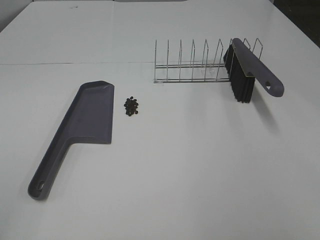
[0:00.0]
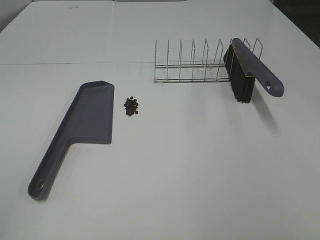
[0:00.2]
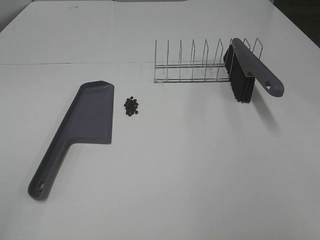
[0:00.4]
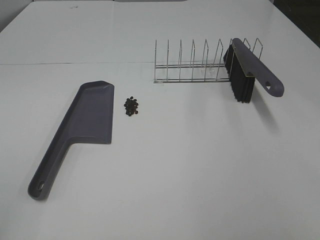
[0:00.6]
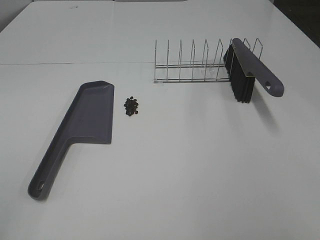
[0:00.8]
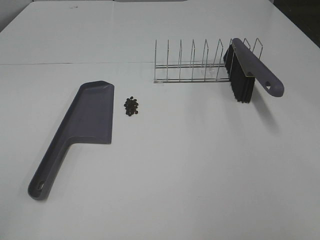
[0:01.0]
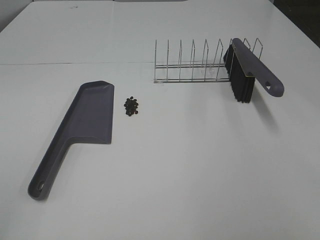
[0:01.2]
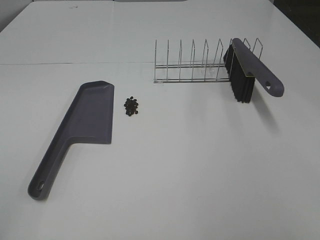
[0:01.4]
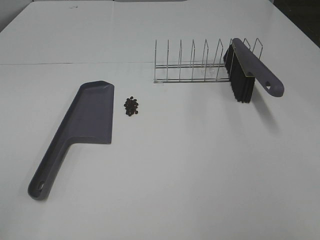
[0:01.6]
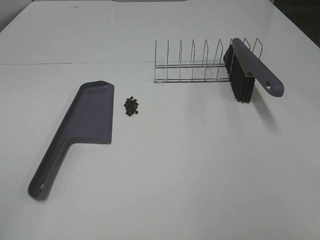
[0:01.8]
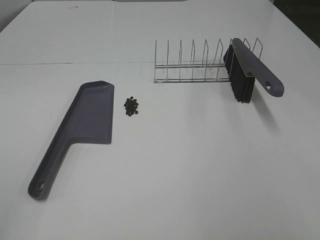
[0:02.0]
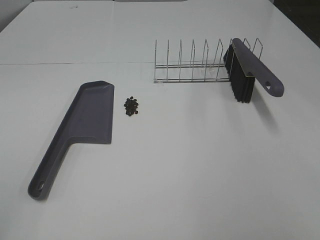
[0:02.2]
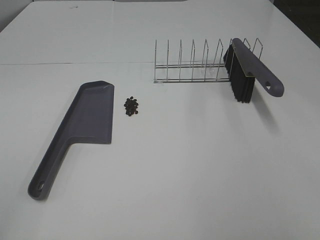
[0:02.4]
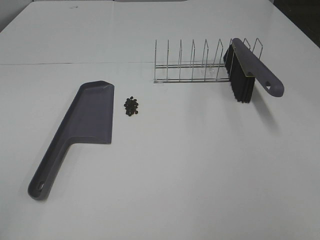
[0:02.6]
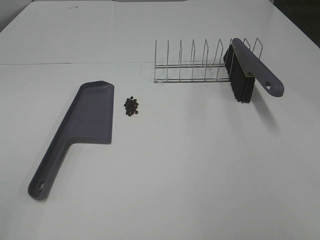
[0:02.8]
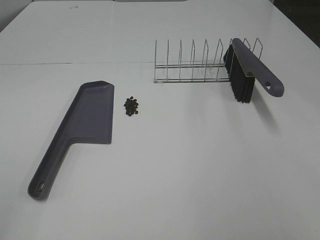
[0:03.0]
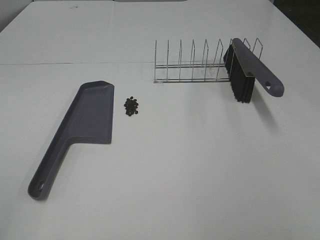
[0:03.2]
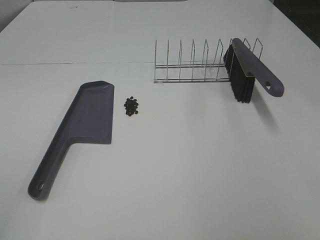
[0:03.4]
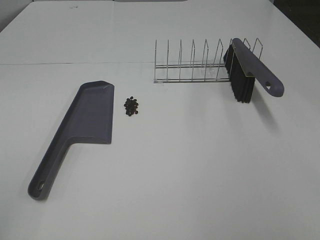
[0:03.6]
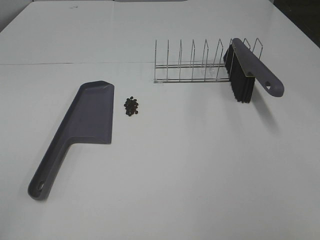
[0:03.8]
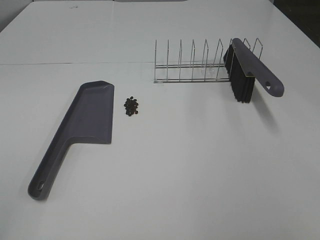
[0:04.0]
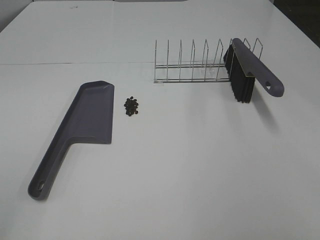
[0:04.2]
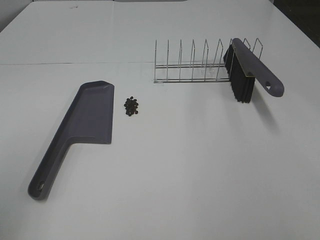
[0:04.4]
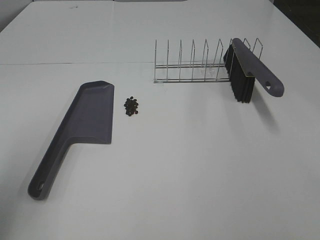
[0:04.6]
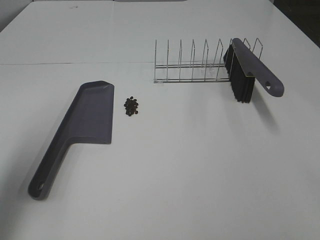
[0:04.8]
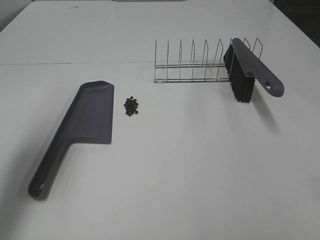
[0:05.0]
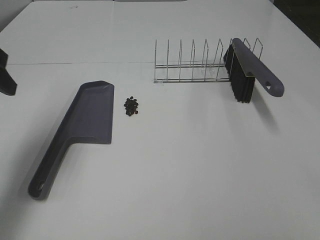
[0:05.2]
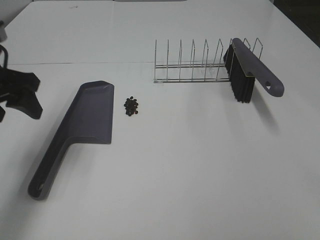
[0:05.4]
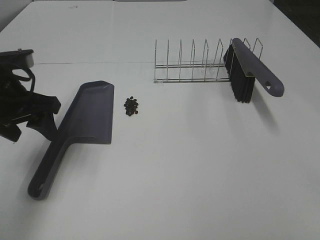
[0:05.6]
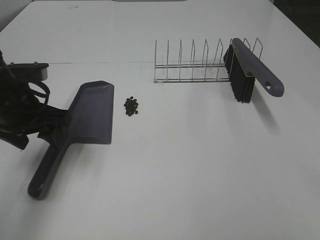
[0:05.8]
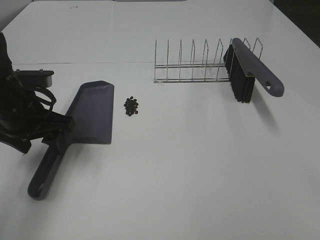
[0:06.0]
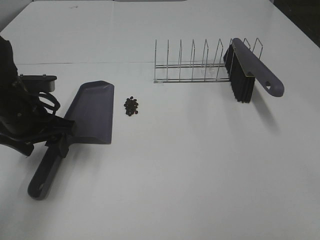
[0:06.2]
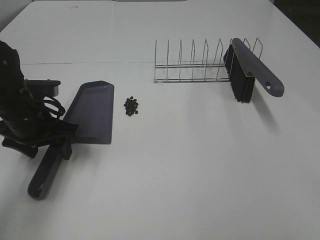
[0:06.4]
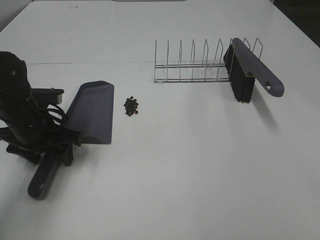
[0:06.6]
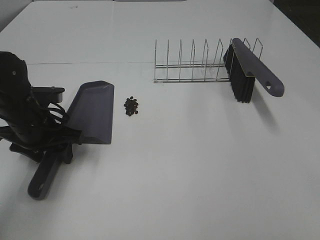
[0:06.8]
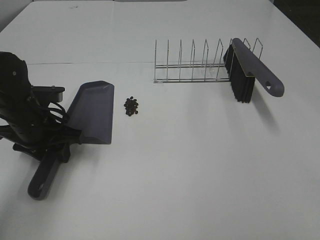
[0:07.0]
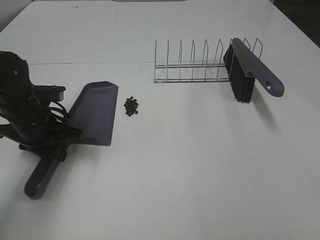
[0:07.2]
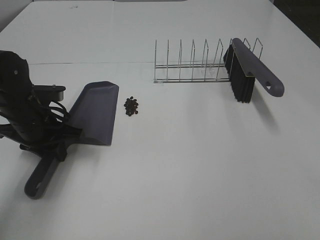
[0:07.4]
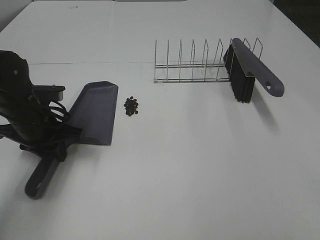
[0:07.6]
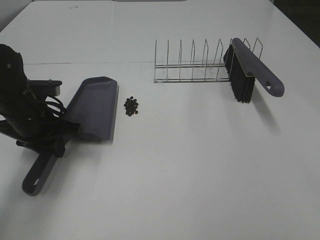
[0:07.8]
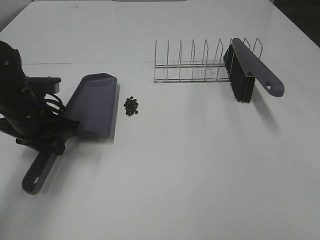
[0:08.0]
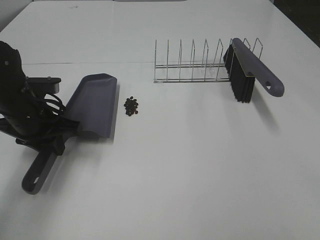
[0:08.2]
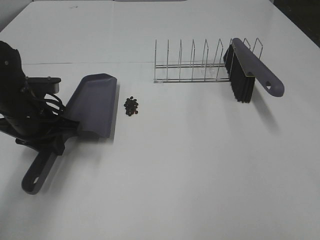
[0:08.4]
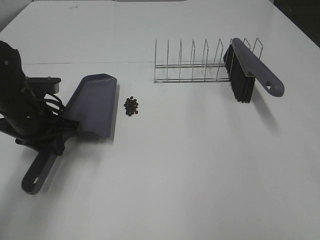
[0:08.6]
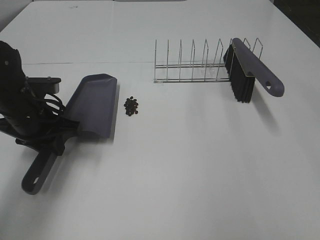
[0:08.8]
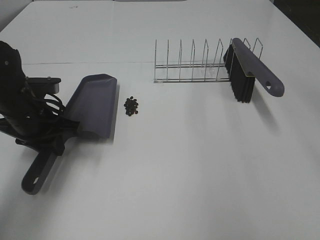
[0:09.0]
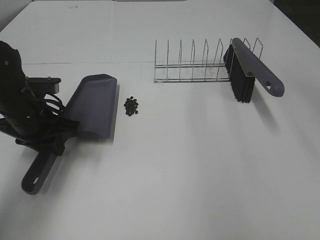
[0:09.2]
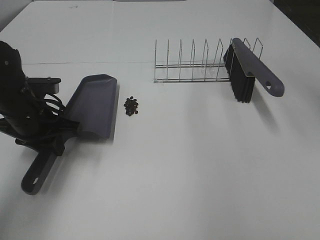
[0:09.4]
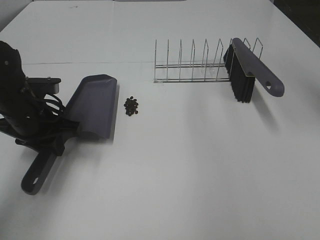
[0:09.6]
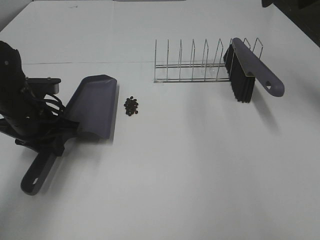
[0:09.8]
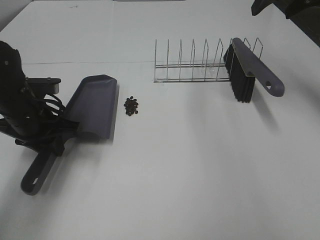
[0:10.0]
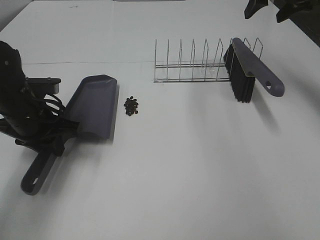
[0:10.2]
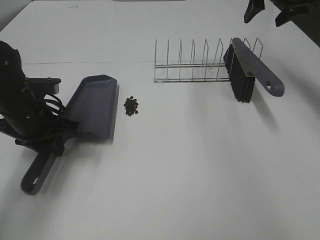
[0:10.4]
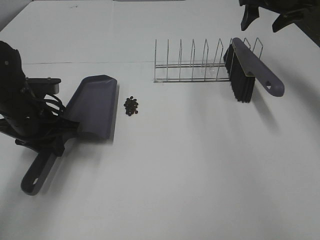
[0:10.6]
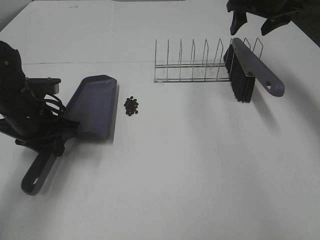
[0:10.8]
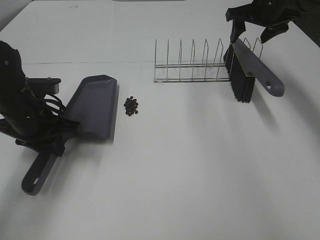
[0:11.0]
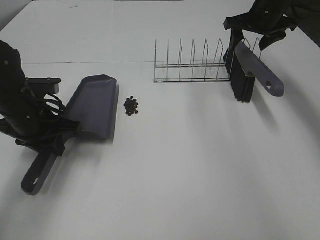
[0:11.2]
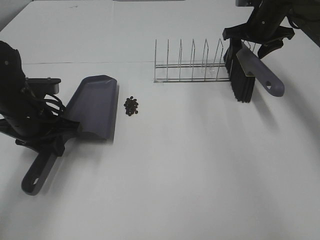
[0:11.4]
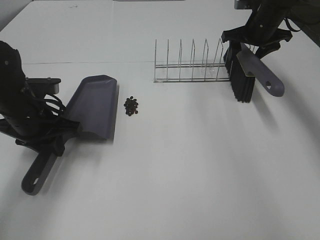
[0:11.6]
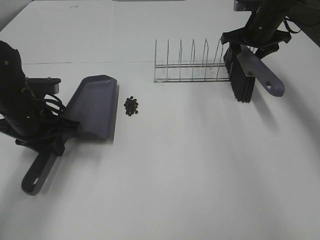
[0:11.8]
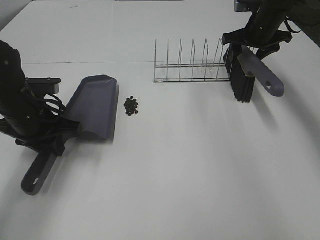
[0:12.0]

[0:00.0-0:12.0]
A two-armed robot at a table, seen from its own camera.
Task of the whole recording: Sweep Coffee Bean.
Step, 0:00.0 to 0:07.2: Left hand: grab the dustpan.
0:00.0 to 0:03.0: The two grippers keep their place.
0:04.4 to 0:06.0: The left gripper goes approximately 30 cm forward, downward and to the right.
0:06.0 to 0:07.6: The left gripper moves about 5 cm, and closes its fingers.
0:09.0 to 0:10.4: The right gripper is displaced forward by approximately 30 cm.
0:10.4 to 0:12.0: The right gripper is displaced downward by about 10 cm.

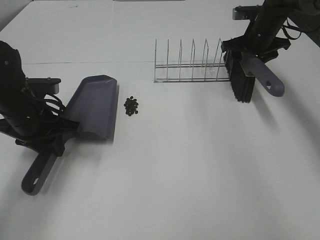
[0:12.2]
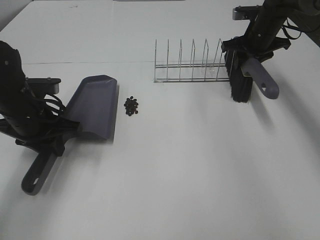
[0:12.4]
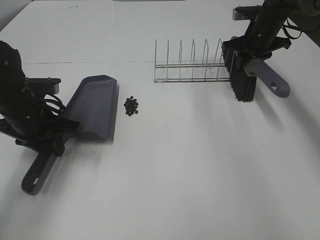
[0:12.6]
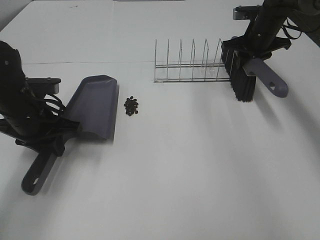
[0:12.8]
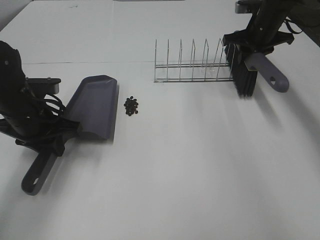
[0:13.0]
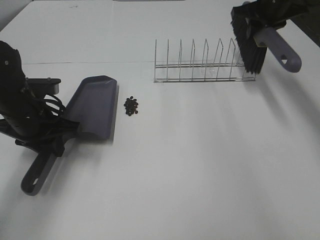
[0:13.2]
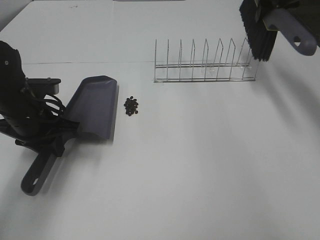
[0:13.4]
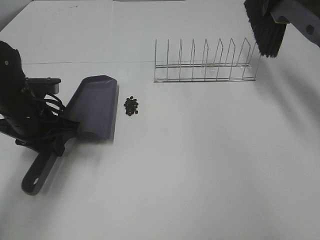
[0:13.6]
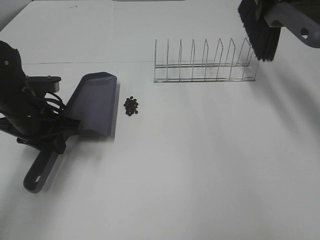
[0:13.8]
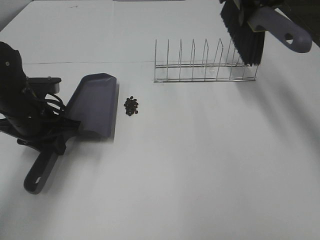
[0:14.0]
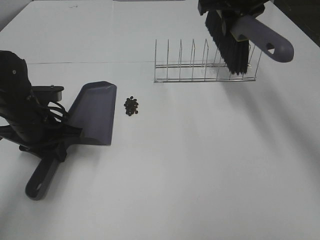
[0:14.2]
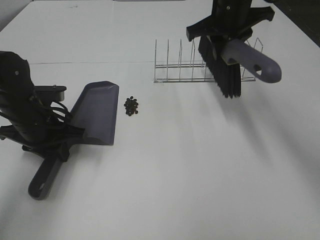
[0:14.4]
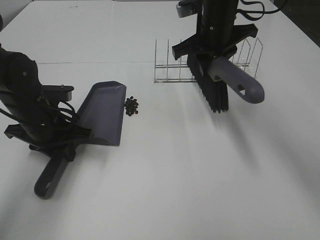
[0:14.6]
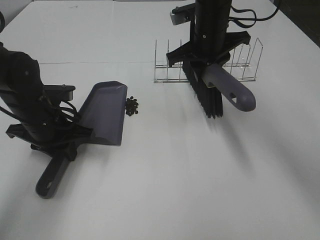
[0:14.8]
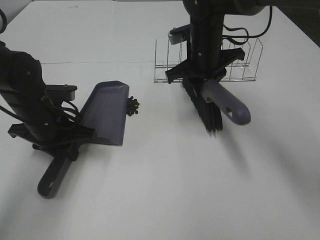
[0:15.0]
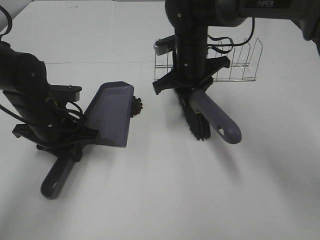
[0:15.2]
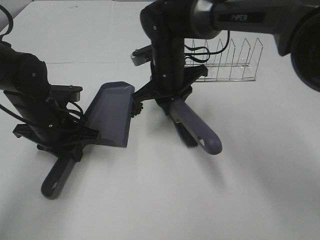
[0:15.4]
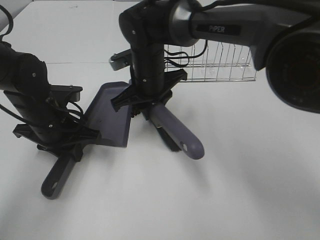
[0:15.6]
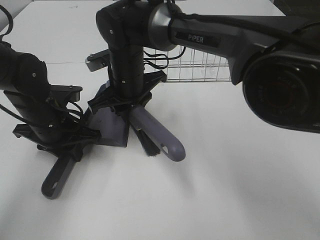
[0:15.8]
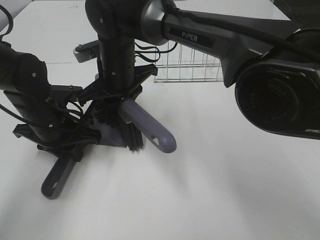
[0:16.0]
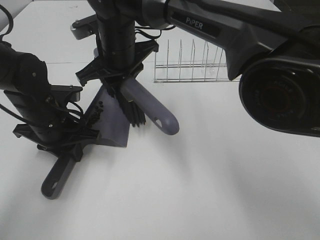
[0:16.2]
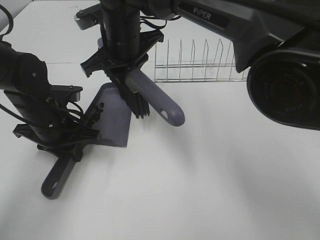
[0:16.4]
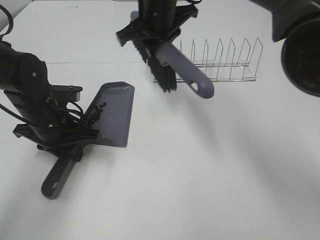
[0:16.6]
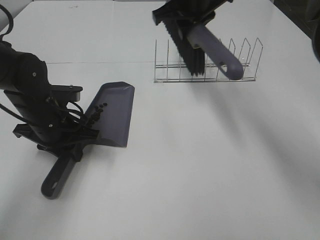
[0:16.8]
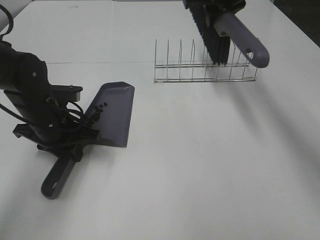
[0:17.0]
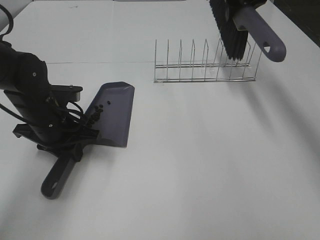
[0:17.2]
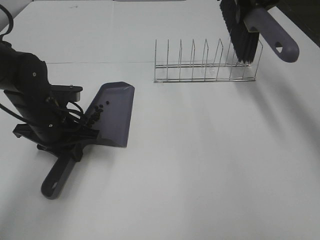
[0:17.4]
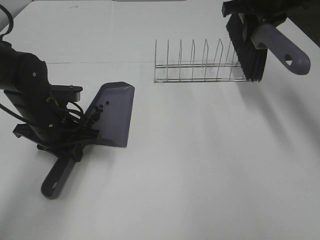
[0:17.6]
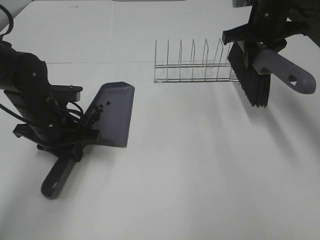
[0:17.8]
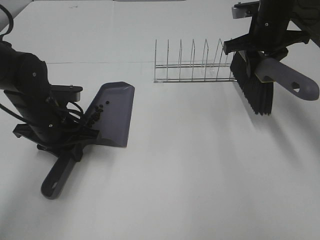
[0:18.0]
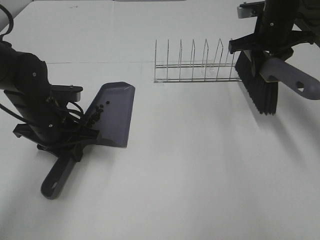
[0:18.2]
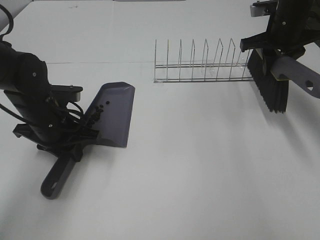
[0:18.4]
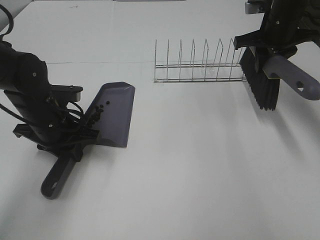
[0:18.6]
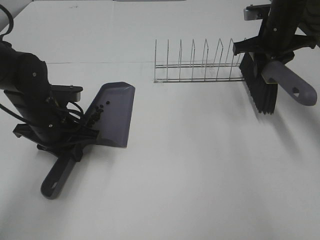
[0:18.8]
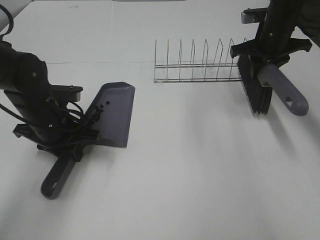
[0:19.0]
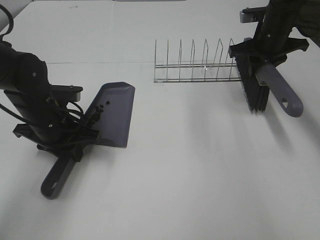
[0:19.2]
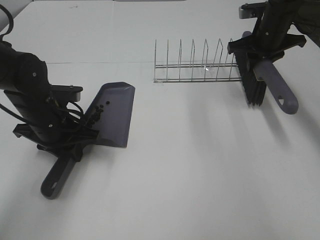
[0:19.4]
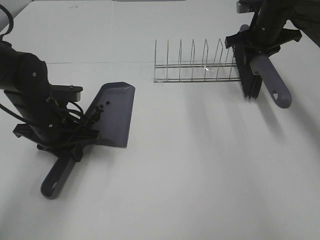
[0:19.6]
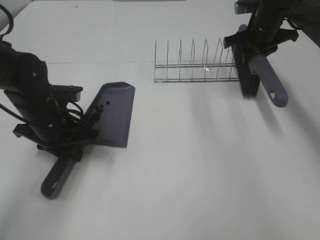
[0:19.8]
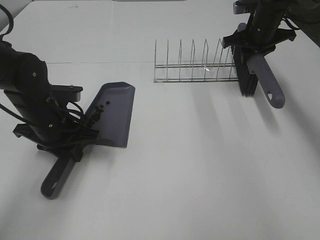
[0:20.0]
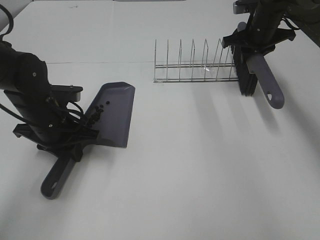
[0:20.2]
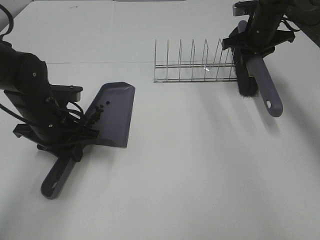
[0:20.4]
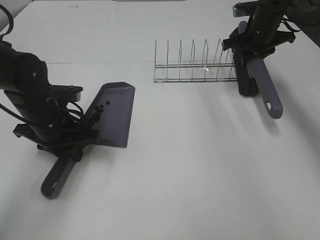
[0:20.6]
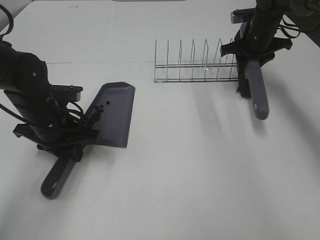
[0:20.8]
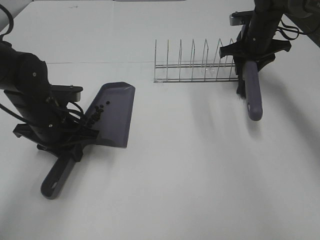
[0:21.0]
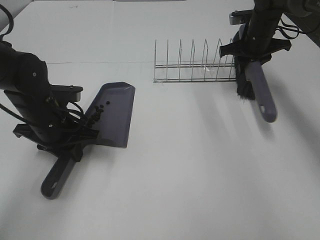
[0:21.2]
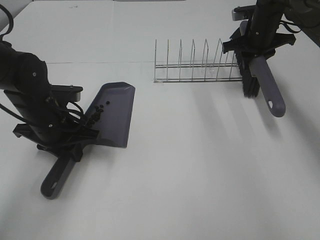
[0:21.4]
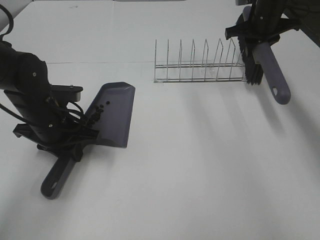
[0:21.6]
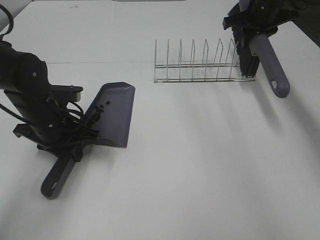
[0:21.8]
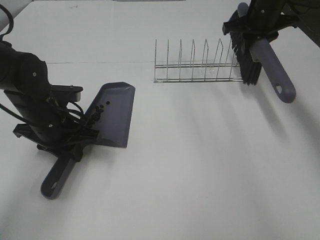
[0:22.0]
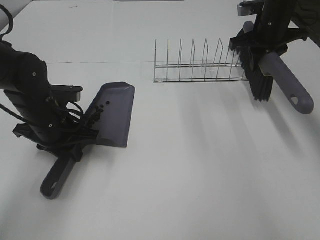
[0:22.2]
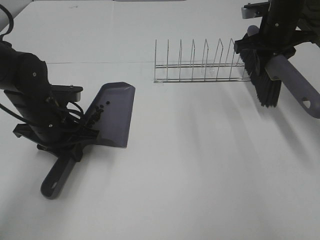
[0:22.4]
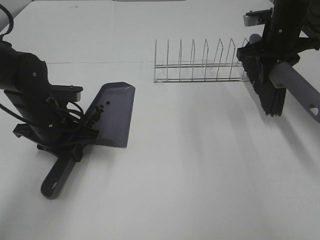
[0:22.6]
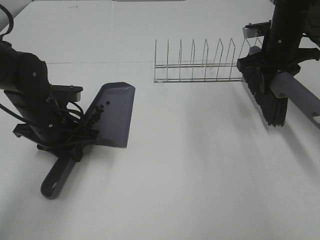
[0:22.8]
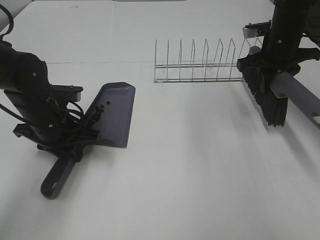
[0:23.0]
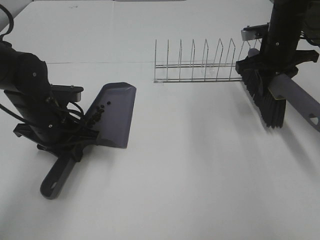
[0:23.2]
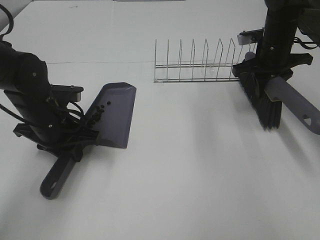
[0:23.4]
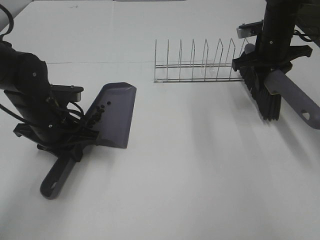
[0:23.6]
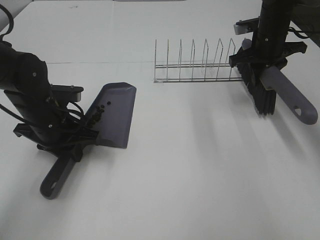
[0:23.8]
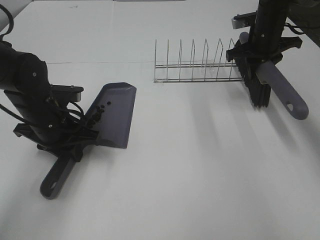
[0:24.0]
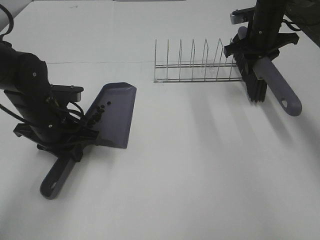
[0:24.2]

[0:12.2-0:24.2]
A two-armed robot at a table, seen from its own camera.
Task of the whole recording: Sweep Coffee Bean.
Step, 0:12.6 to 0:16.2: Right hand:sweep the coffee beans into the dustpan.
0:12.2 to 0:13.8: The right gripper heads upward, covering approximately 15 cm, and closes up.
0:13.8 to 0:15.2: The right gripper moves to the left and downward, roughly 25 cm.
0:15.2 to 0:16.6: The right gripper heads upward, covering roughly 10 cm, and moves roughly 15 cm to the left and comes back.
0:16.6 to 0:18.2: The right gripper shifts approximately 20 cm to the right.
0:18.2 to 0:19.8: The right gripper shifts about 5 cm forward.
0:19.8 to 0:21.2: The right gripper opens, then closes again.
0:21.2 to 0:22.6: The right gripper heads backward, covering about 5 cm.
0:22.6 to 0:24.2: The right gripper is displaced forward by roughly 5 cm.
